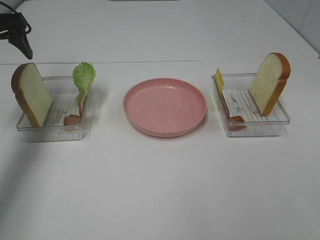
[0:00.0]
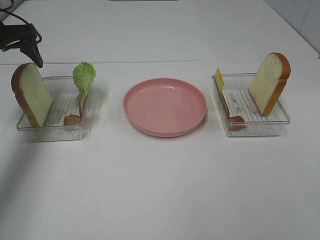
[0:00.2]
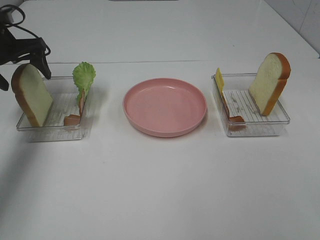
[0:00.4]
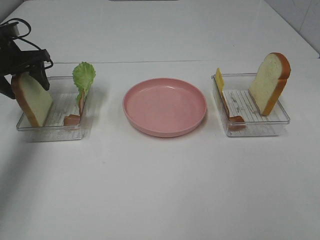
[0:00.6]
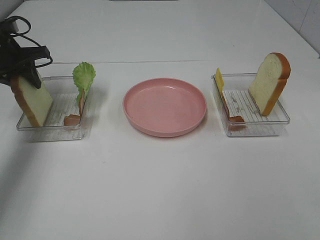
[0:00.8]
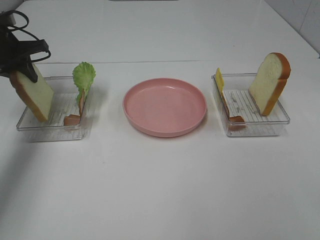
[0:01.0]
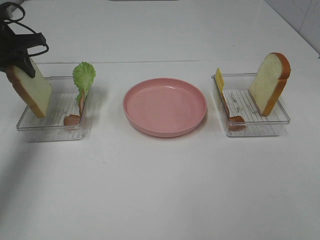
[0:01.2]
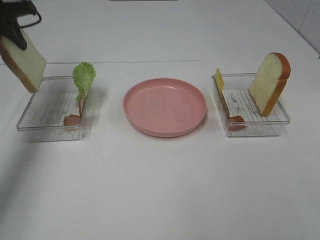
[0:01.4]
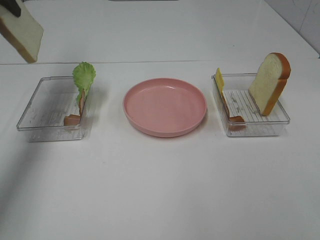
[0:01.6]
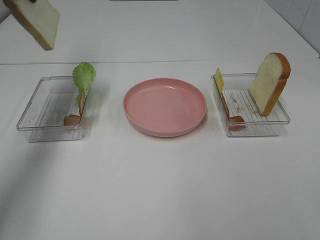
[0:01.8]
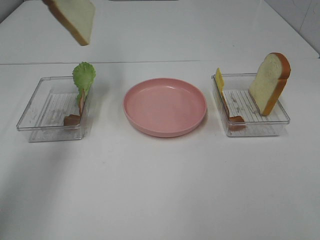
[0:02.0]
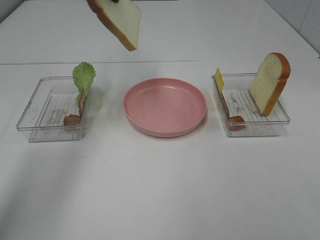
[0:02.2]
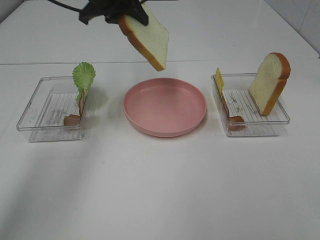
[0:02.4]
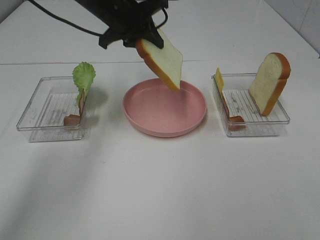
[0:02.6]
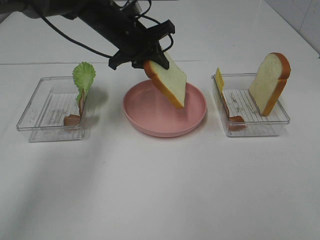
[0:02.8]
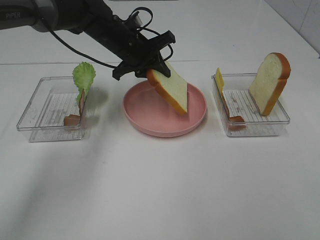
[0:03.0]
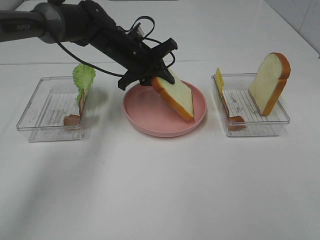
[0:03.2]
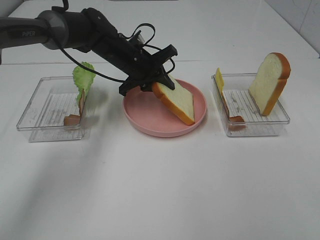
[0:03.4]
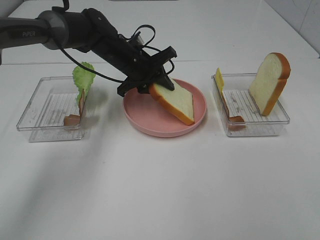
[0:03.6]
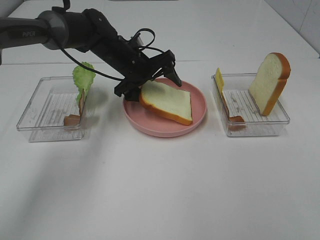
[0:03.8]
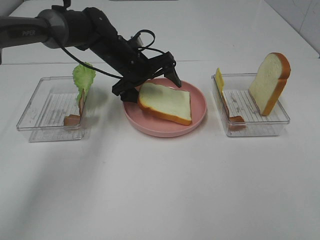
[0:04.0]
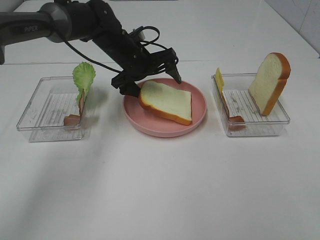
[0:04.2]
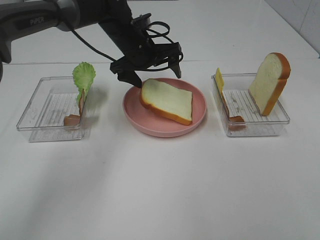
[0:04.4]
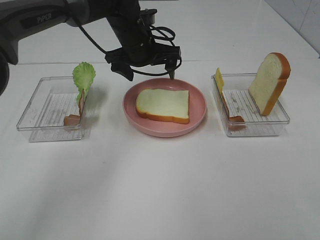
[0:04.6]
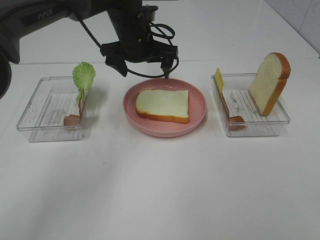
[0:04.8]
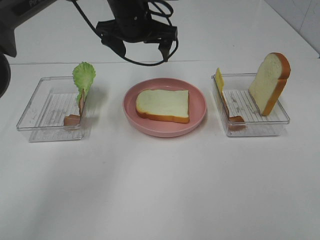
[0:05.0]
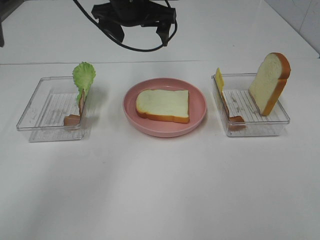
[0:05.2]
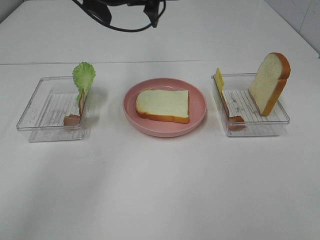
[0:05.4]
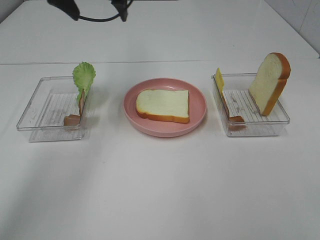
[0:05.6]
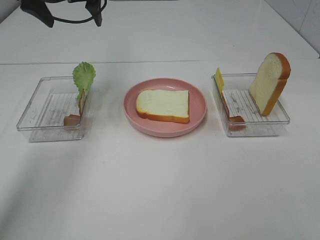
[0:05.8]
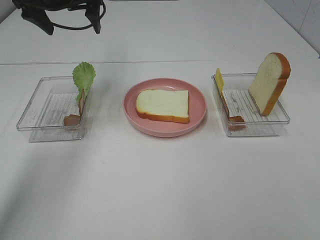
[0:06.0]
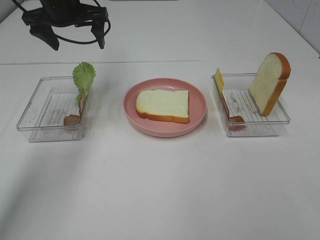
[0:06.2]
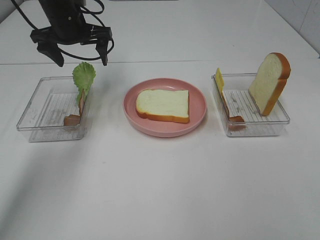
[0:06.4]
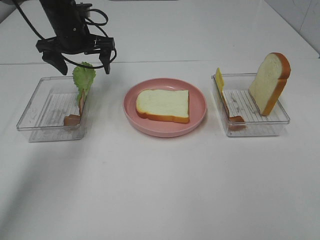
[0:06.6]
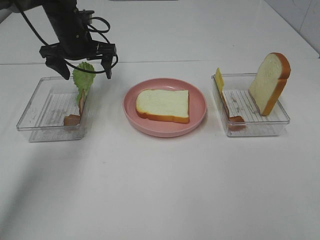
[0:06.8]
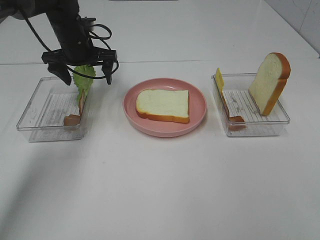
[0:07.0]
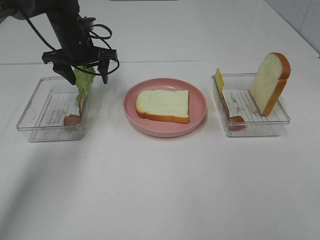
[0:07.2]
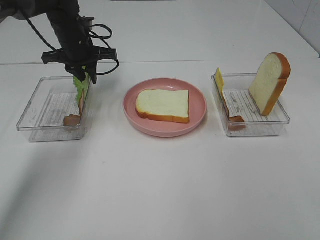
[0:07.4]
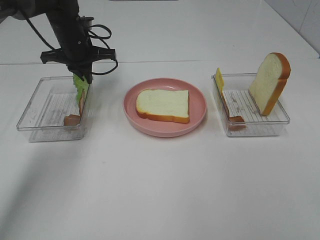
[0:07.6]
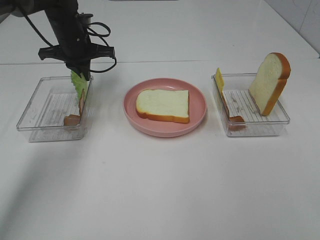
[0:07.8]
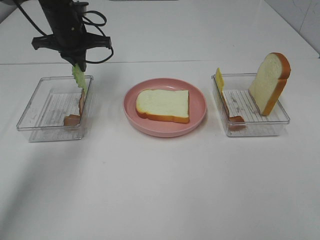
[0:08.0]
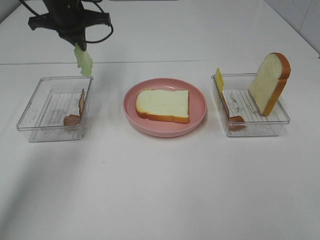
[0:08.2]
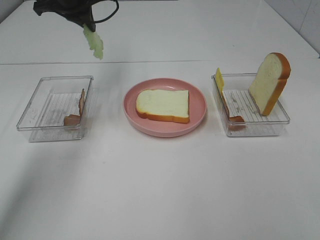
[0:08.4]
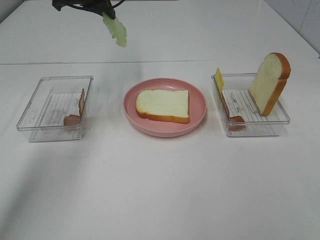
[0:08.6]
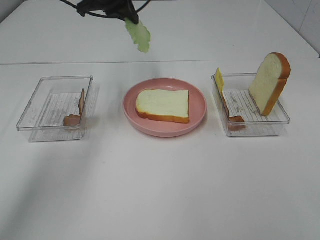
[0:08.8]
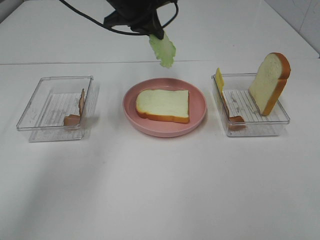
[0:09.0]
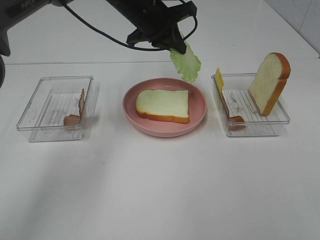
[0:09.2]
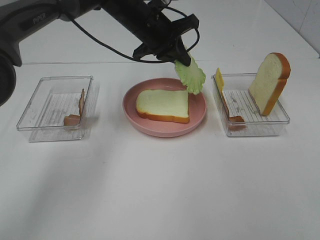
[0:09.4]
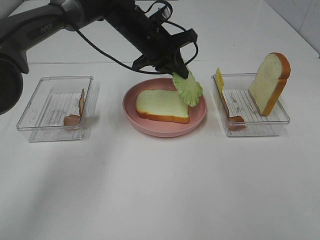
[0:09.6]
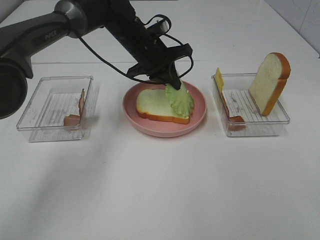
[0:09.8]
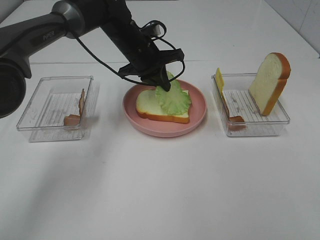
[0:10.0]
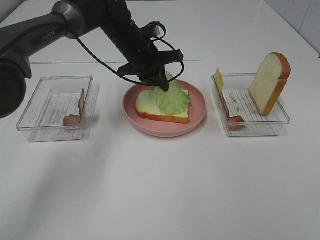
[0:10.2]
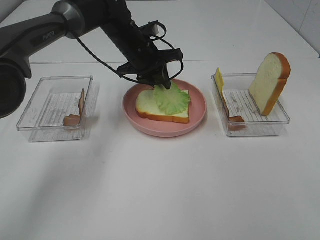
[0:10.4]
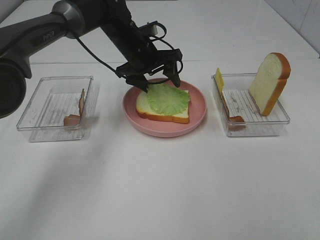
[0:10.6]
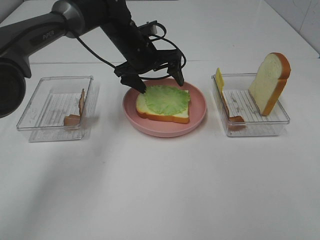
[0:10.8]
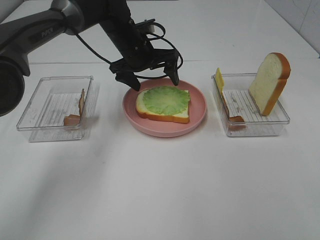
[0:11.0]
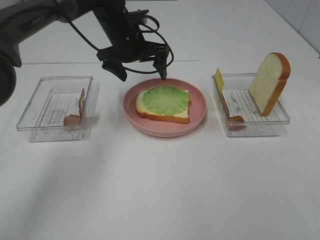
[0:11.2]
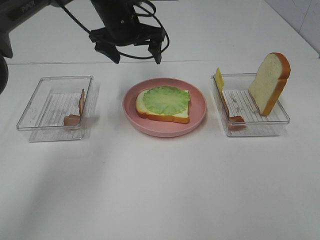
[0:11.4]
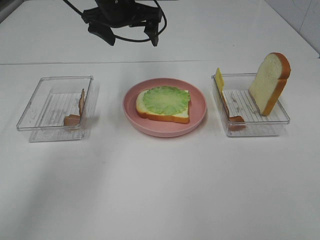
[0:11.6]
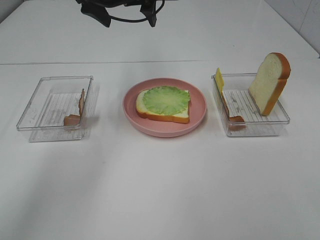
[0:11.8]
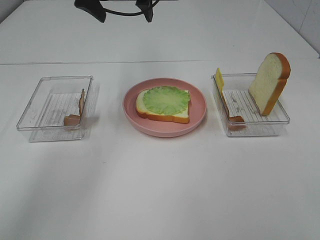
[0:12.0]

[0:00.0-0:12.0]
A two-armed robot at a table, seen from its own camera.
Task of the whole recording: Make sandwiches.
Step, 0:01.0 to 0:04.6: Left hand:place the bread slice on the plate.
Step, 0:04.8 to 0:08.0: Left hand:grab the lettuce slice.
Step, 0:08.2 to 0:11.0: Left hand:place the lettuce slice on the bread slice.
0:00.0 to 0:01.6: The left gripper goes some 5 cm upward, and closes its fingers.
0:01.6 to 0:03.0: The left gripper moves to the right and downward, some 30 cm.
0:03.0 to 0:04.4: The left gripper opens.
0:04.4 to 0:06.0: The left gripper travels to the left and upward by some 20 cm.
0:06.0 to 0:07.6: The left gripper is displaced downward by roughly 10 cm, and closes.
0:07.6 to 0:09.0: The left gripper travels to the right and upward by about 15 cm.
0:09.0 to 0:10.4: The left gripper goes about 10 cm downward.
0:10.4 to 0:12.0: The left gripper is displaced upward by roughly 15 cm, and opens up.

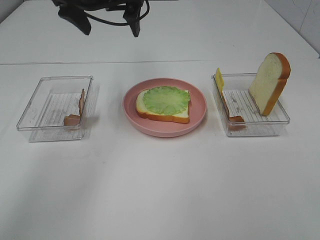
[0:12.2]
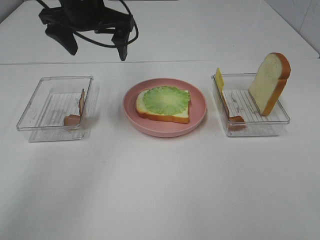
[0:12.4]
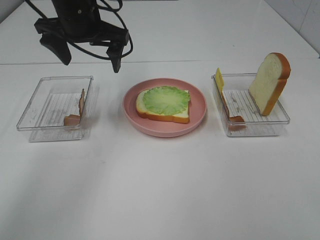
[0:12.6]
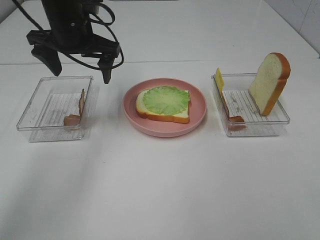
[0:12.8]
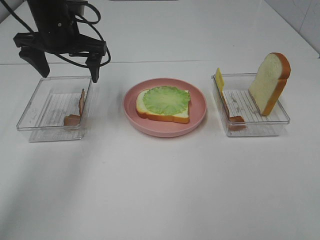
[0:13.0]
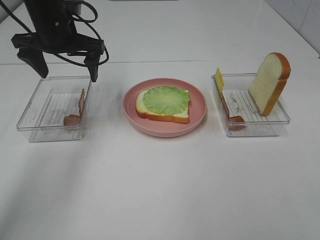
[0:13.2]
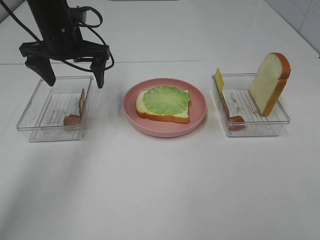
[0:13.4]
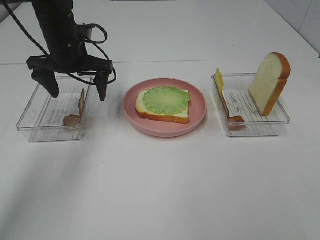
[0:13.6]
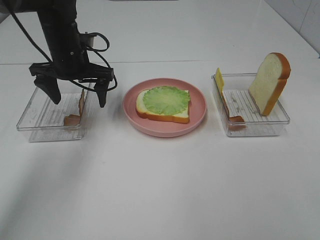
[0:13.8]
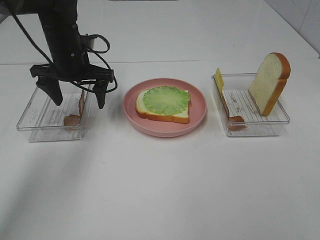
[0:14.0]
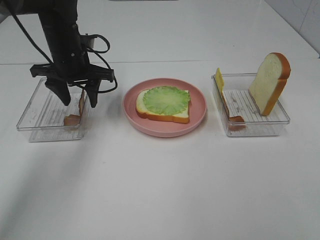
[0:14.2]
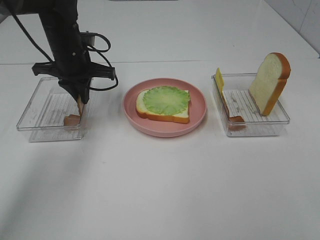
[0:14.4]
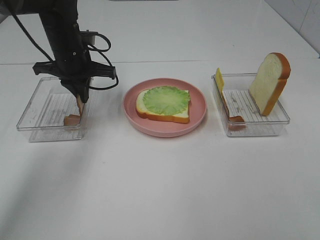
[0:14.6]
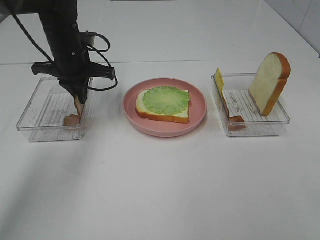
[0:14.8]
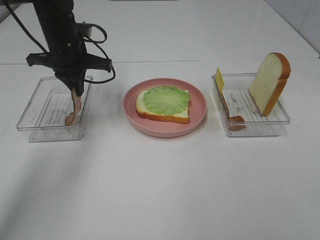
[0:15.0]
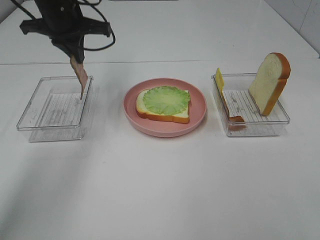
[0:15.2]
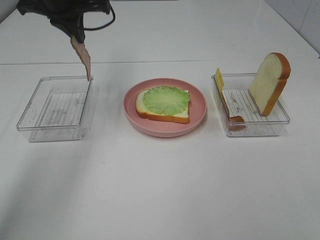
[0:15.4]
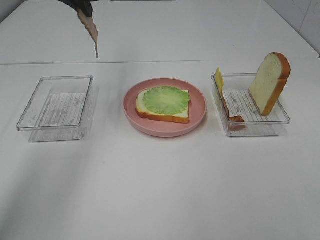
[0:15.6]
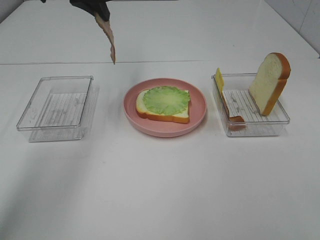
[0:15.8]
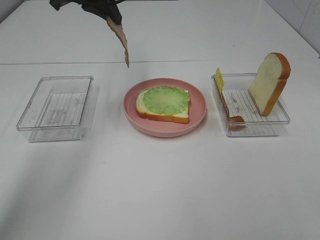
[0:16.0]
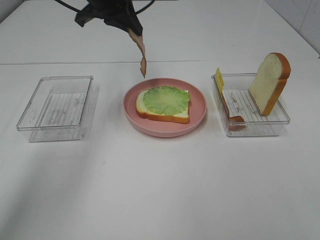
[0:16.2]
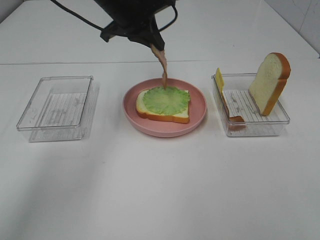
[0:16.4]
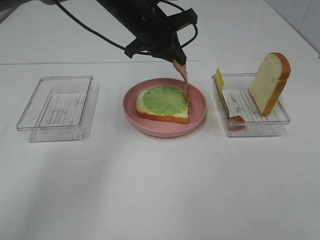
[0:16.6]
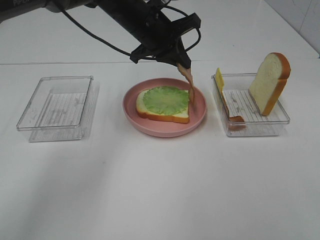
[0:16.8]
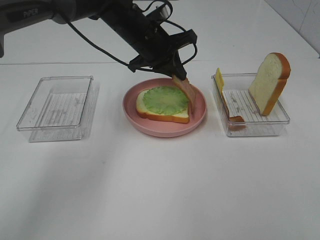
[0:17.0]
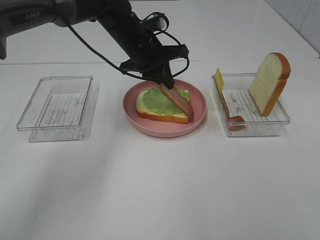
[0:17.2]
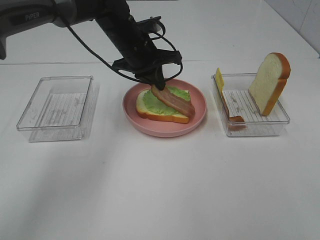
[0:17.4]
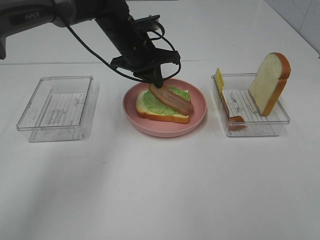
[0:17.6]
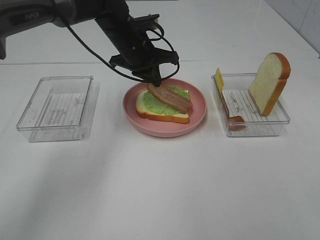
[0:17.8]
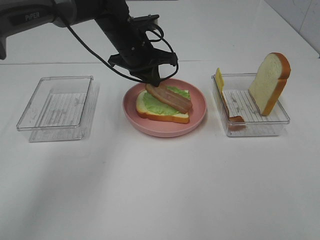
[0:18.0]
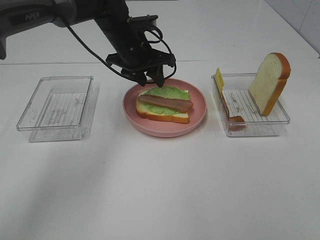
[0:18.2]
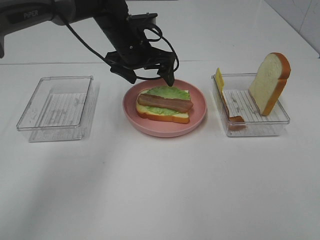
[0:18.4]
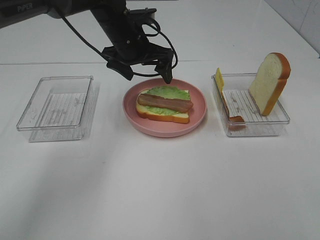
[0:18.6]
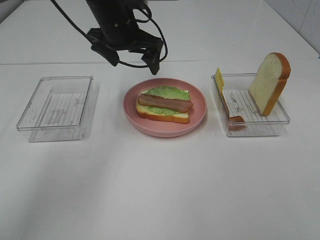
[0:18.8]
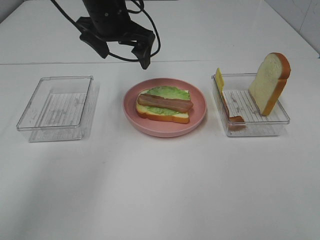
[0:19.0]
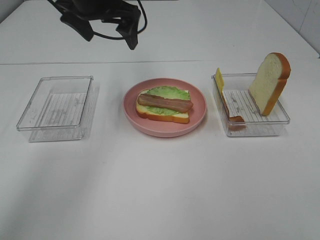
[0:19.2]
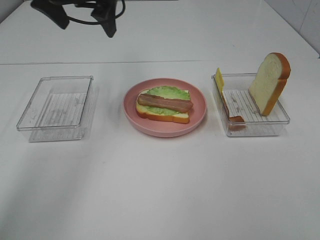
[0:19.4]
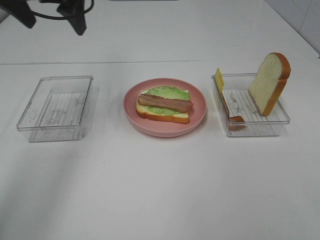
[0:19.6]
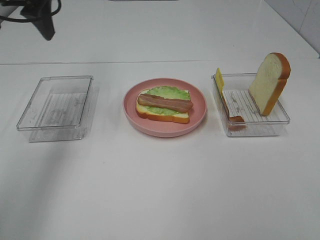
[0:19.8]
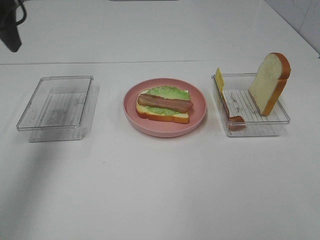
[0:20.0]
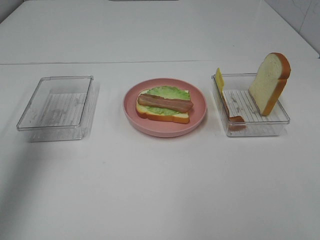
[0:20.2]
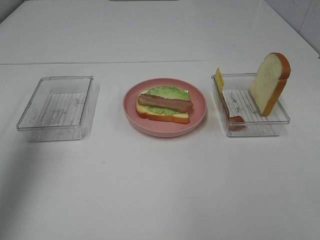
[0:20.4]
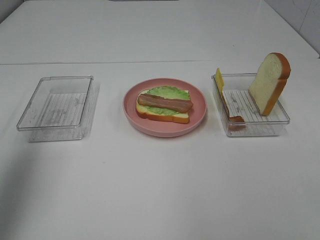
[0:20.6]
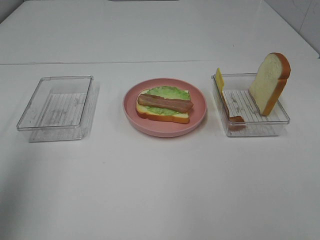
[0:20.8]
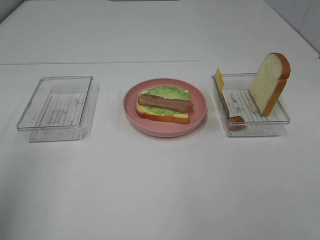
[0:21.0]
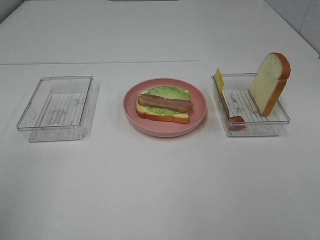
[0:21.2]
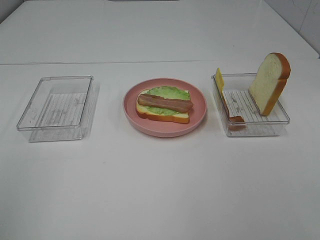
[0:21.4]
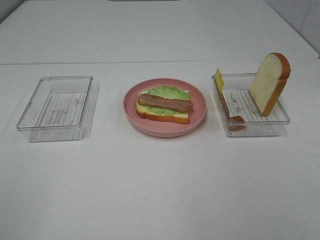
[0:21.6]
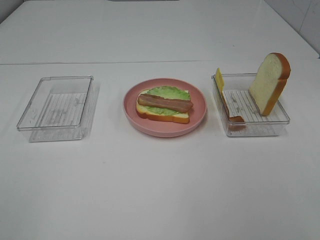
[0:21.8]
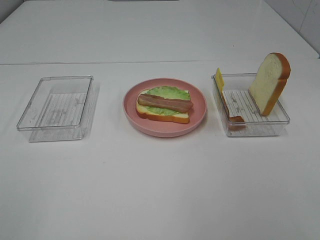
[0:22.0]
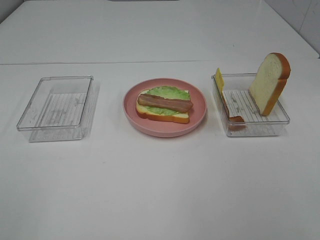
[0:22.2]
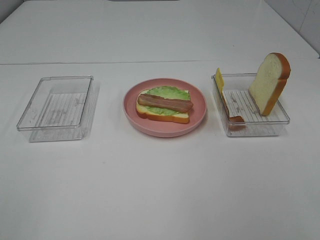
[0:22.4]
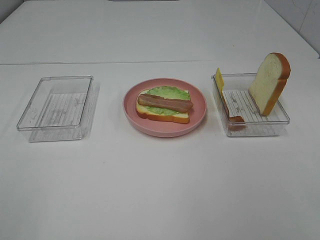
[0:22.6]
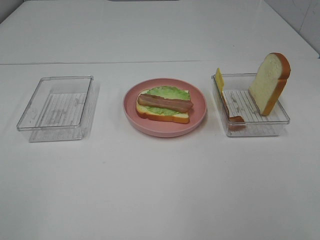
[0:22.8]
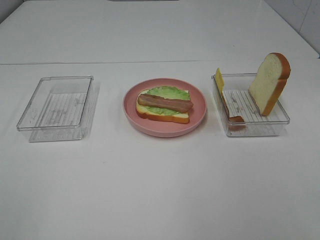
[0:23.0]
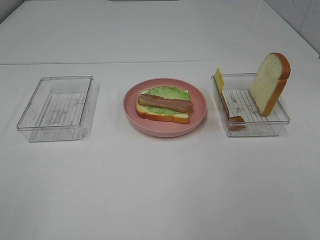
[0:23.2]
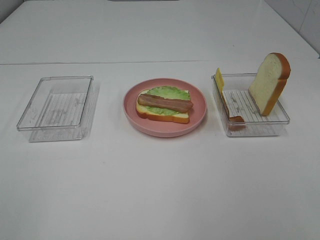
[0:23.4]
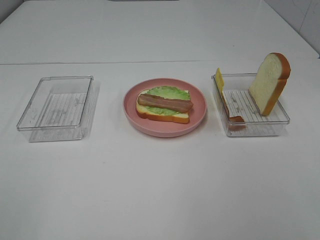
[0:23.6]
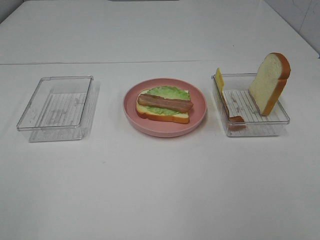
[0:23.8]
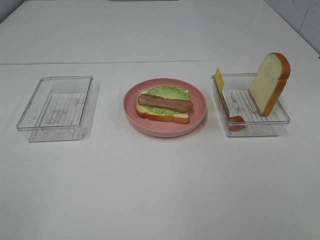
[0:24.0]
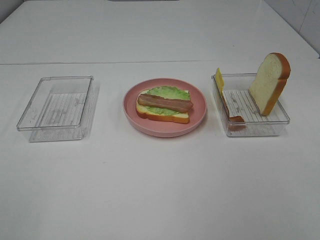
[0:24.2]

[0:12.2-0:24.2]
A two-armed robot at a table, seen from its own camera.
Task of the whole recording: Make sandwiches.
Step, 0:12.2 to 0:14.8: Left hand:grab the bacon.
Step, 0:15.0 to 0:18.2: Left hand:place bacon on lettuce slice.
0:12.2 to 0:13.8: The left gripper shifts approximately 15 cm downward and to the left.
0:13.8 to 0:15.2: The left gripper is displaced upward by roughly 10 cm, and closes its fingers.
0:15.2 to 0:16.6: The left gripper shifts some 15 cm to the right.
0:16.6 to 0:18.2: The left gripper travels downward by some 5 cm, and opens its fingers.
0:18.2 to 0:19.8: The left gripper heads to the left, upward and backward, covering about 25 cm, and opens up.
0:19.8 to 0:21.2: The left gripper is displaced backward by approximately 30 cm.
